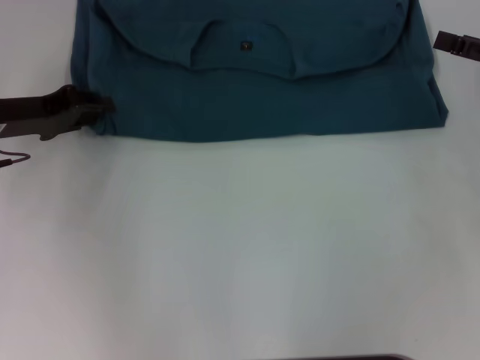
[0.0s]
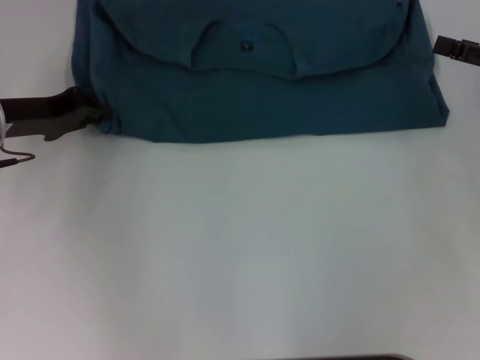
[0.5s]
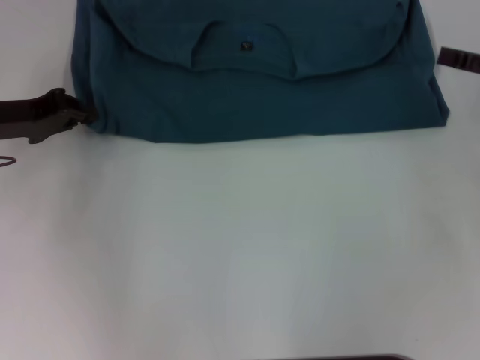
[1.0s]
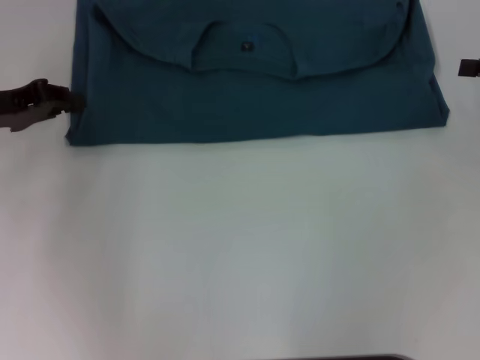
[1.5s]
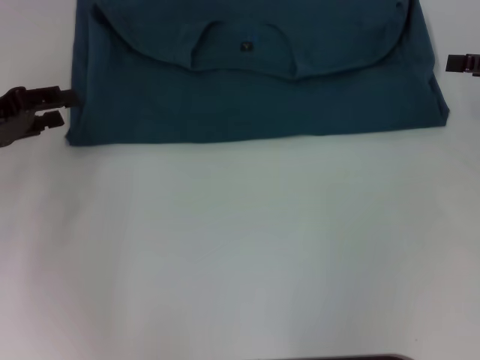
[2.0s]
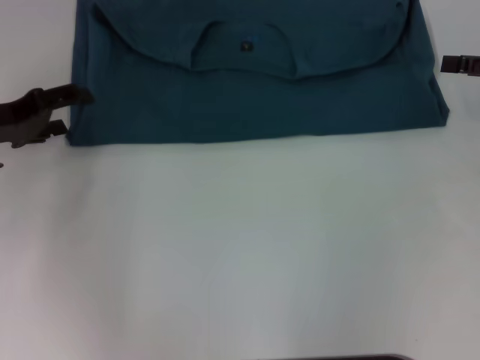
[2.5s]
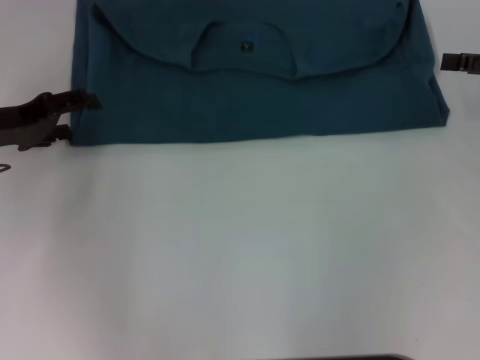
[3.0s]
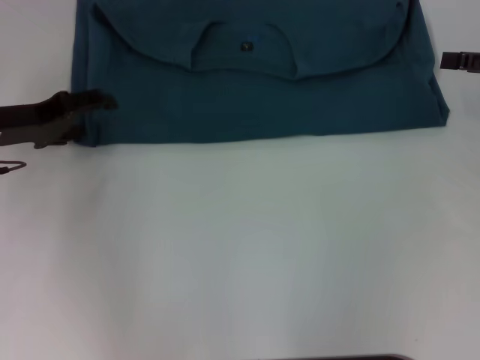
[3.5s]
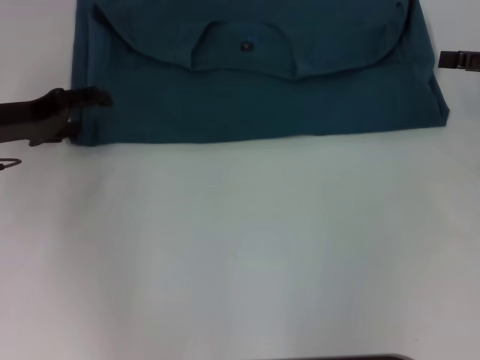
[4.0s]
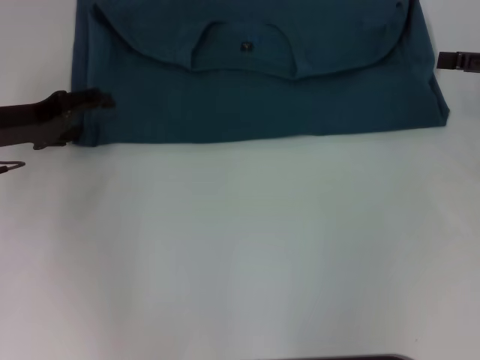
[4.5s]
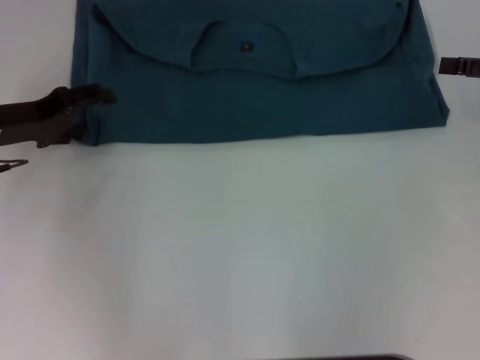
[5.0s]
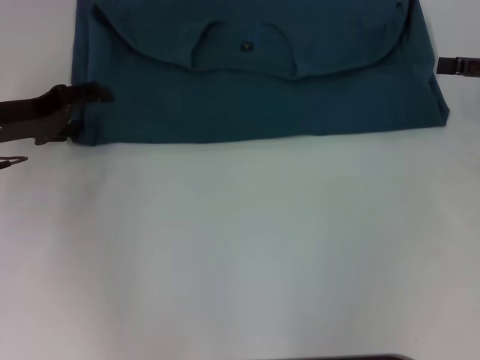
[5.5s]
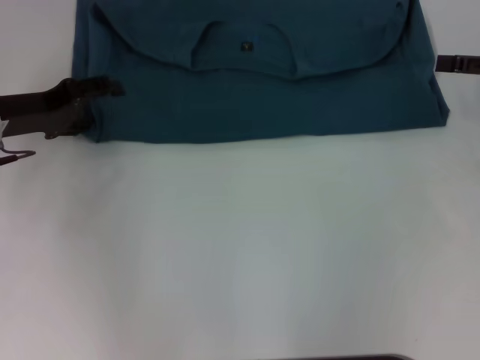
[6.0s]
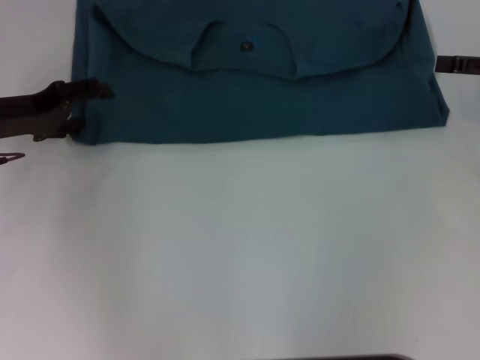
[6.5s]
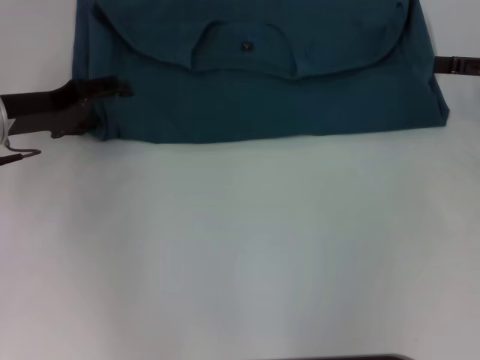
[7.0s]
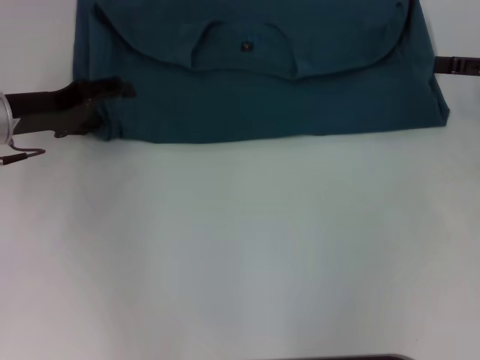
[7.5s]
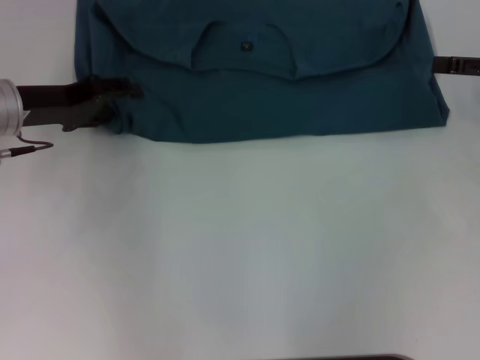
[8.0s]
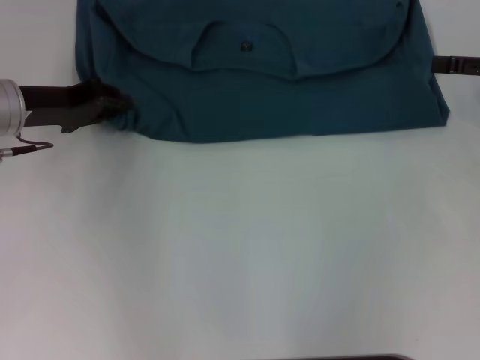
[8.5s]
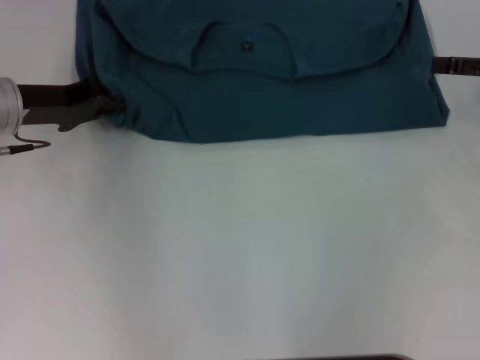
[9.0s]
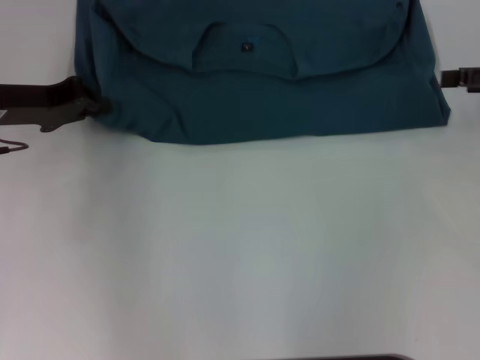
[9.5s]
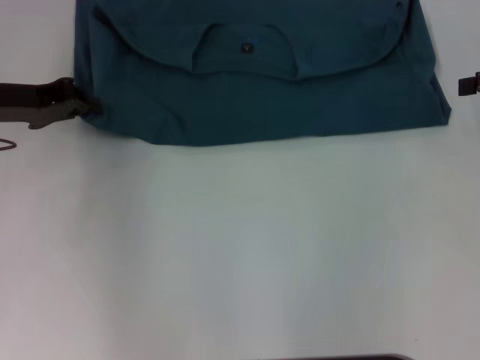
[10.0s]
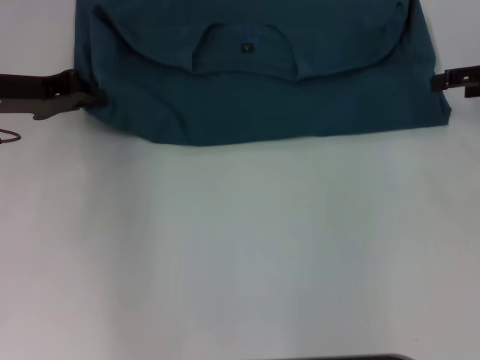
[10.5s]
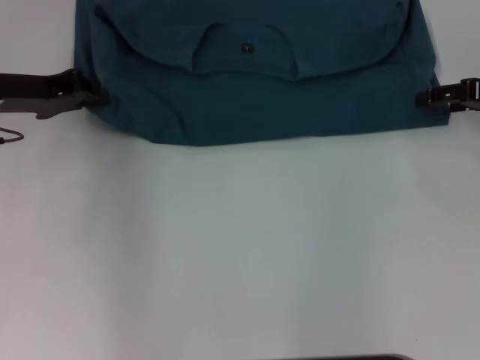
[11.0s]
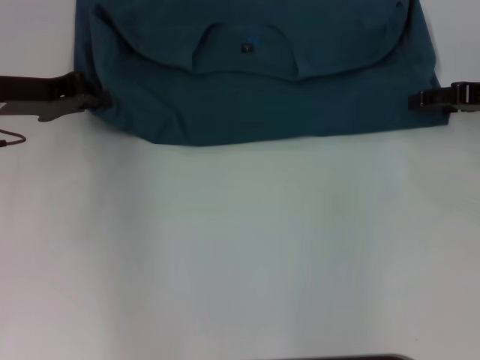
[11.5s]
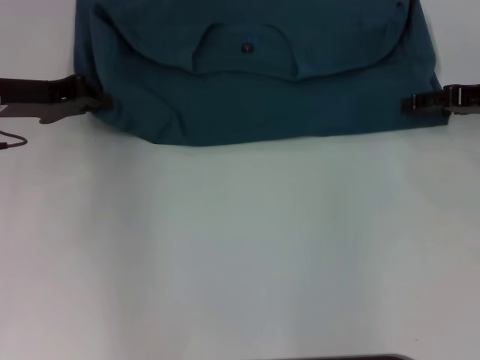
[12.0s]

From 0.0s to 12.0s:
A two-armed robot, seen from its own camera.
From 0.0s to 2.0s: The left gripper moves some 5 cm, and closes, then opens again.
From 2.0s to 4.0s: The left gripper opens its fingers.
From 4.0s to 6.0s: Both grippers stay about where they are.
From 6.0s to 8.0s: The grippers stay close to where they were, moving slightly.
From 8.0s to 10.0s: The left gripper closes its fingers.
From 10.0s to 12.0s: The right gripper shifts roughly 5 cm downward and to the left.

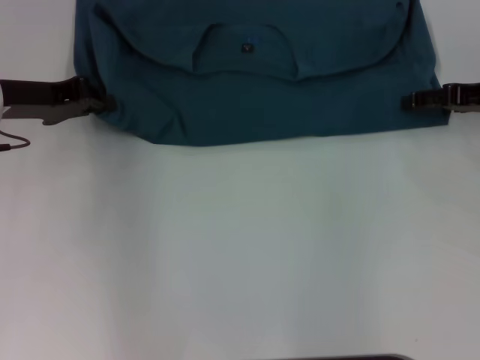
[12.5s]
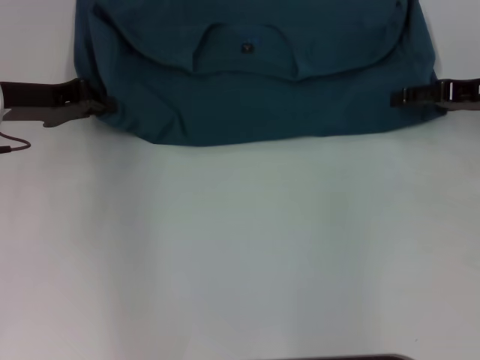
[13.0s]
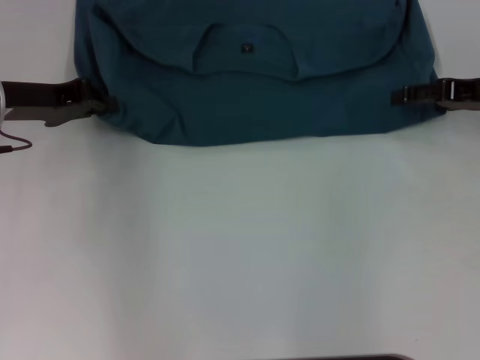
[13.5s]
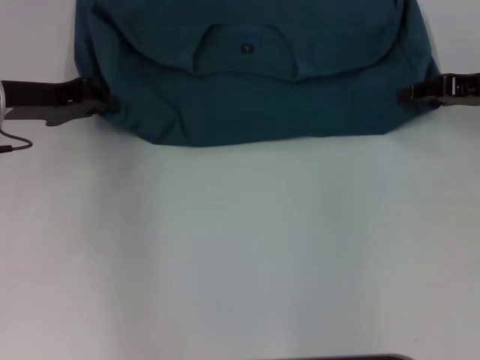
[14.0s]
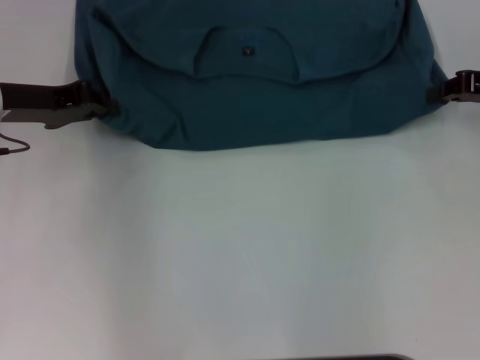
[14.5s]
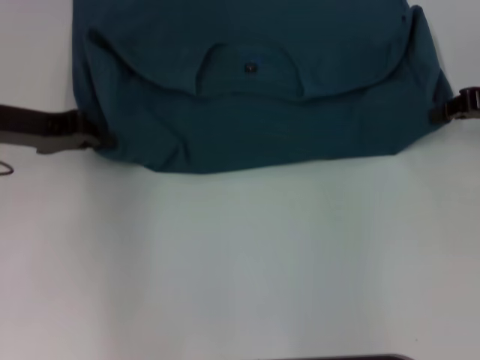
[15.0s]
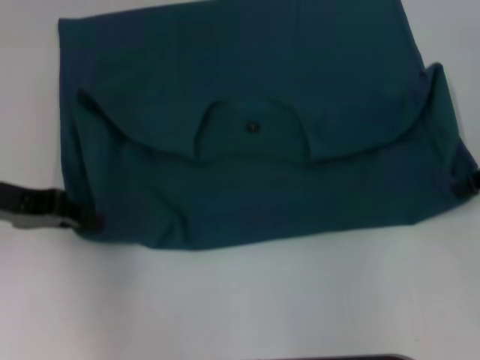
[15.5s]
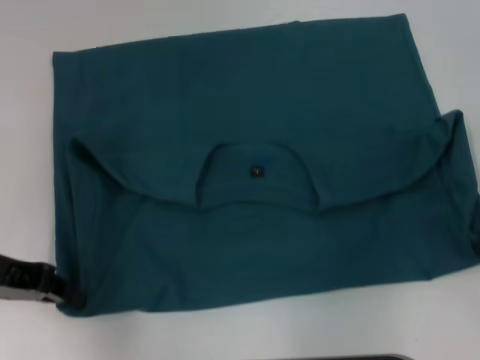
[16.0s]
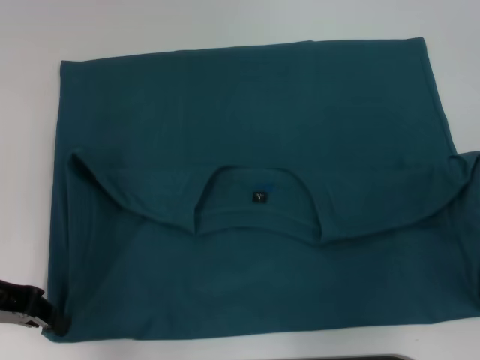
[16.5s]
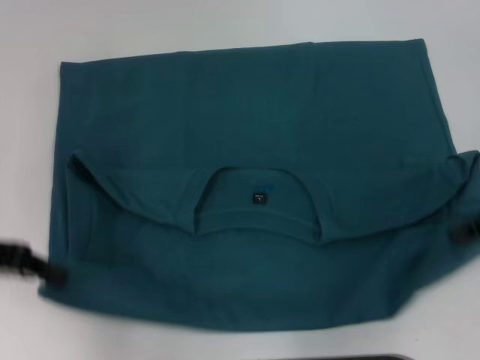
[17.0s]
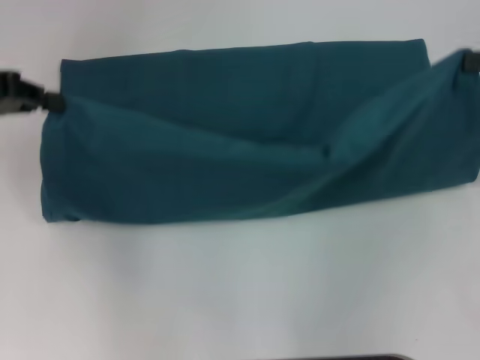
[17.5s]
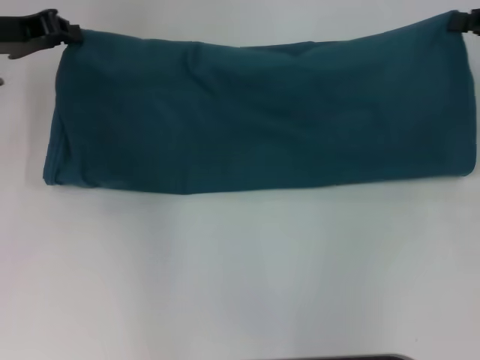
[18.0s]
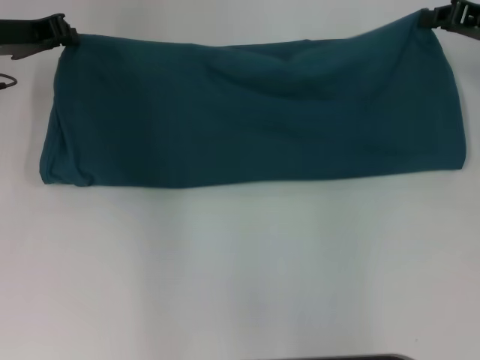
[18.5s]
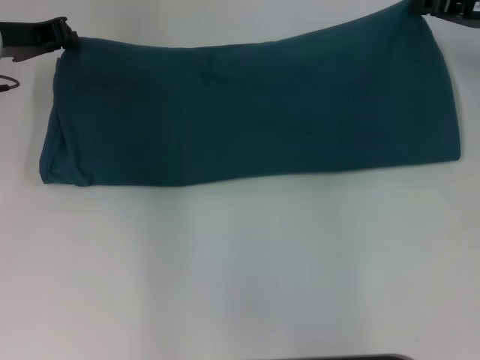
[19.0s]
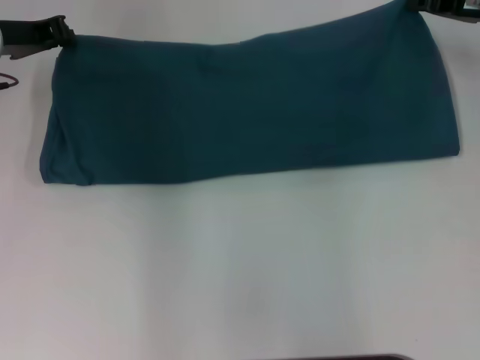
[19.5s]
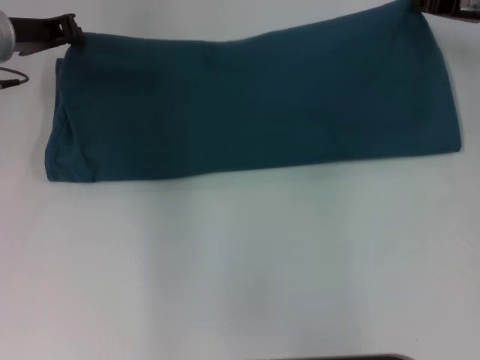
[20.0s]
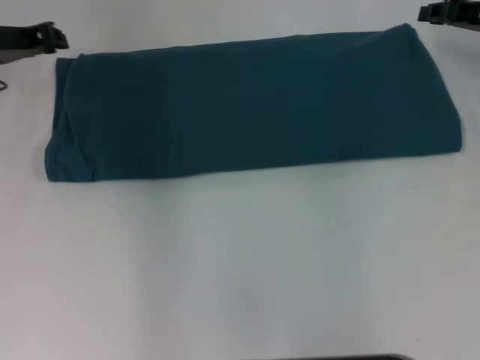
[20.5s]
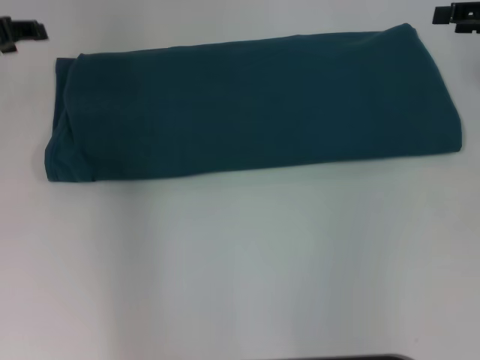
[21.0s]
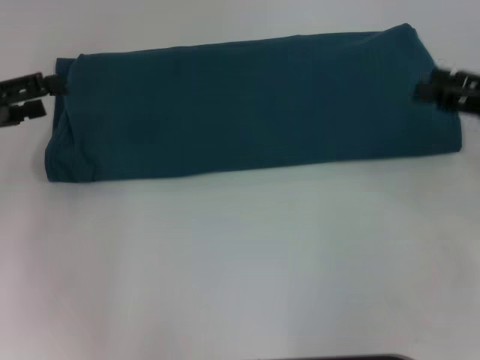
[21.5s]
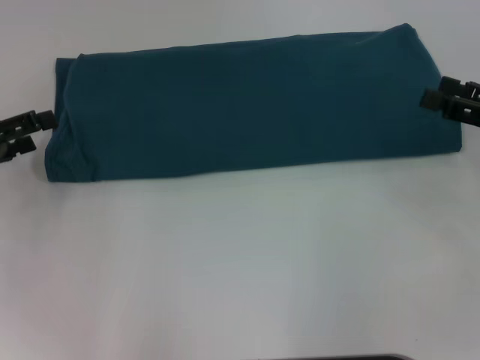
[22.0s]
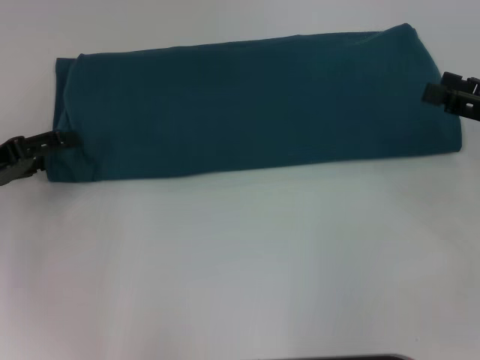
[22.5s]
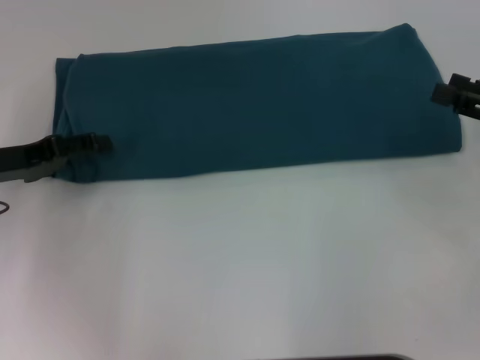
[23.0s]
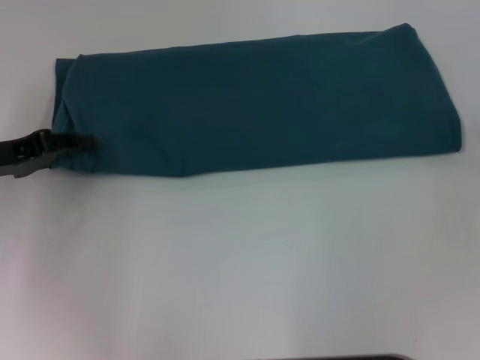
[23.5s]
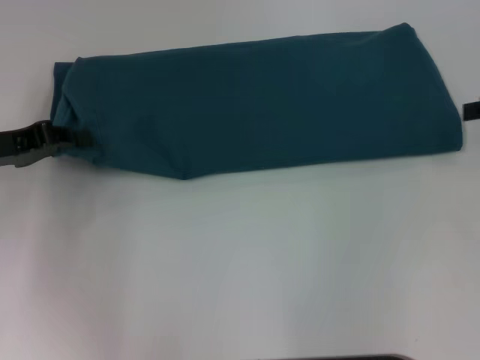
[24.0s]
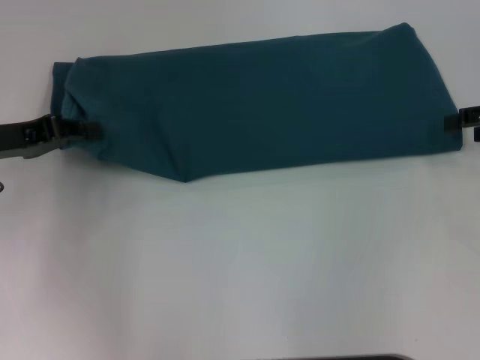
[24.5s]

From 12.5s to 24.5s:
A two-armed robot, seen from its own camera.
Step, from 12.5s to 16.5s: Pull the clothes with your left hand.
Step, from 12.5s to 16.5s: Pull the clothes with your right hand.
Step, from 17.0s to 20.5s: Fold the clothes to the left.
Step, from 17.0s to 20.5s: Fold the clothes to the right.
From 12.5s to 14.5s: The right gripper closes up.
From 14.5s to 16.5s: The grippers both shift backward by roughly 10 cm.
From 16.5s to 18.5s: The two grippers go roughly 15 cm forward.
From 18.5s to 20.5s: There are only small adjustments of the grippers.
From 20.5s to 22.5s: The left gripper shifts some 15 cm backward, to the left and downward, and opens; the right gripper travels backward by about 15 cm, and opens its fingers.
From 22.5s to 24.5s: The right gripper shifts some 5 cm forward, while the left gripper shifts by roughly 5 cm, and closes up.

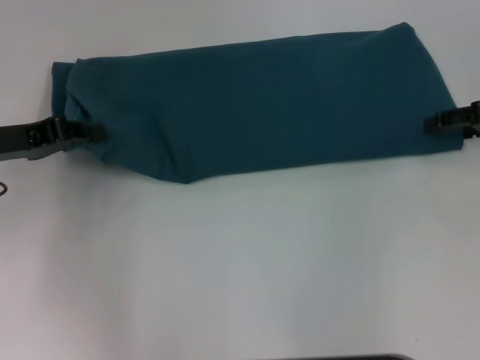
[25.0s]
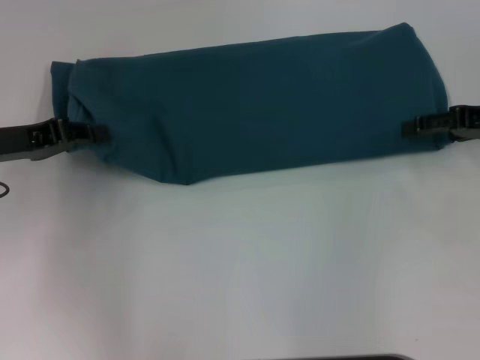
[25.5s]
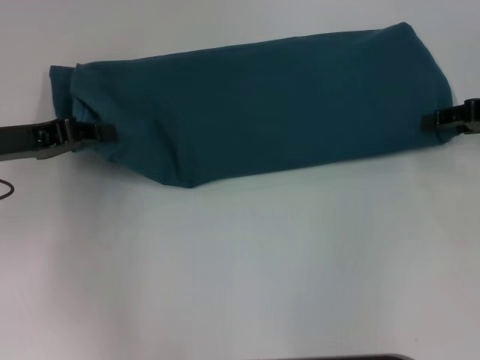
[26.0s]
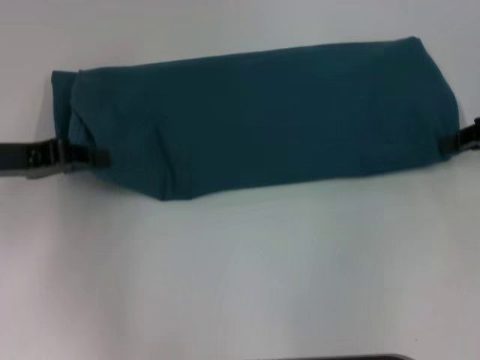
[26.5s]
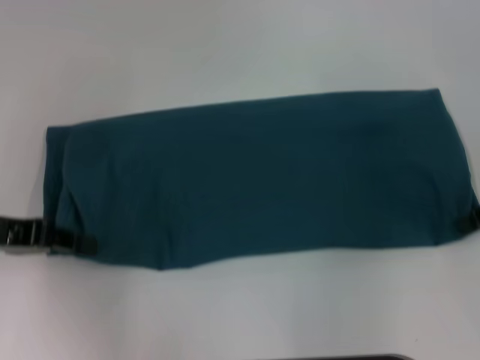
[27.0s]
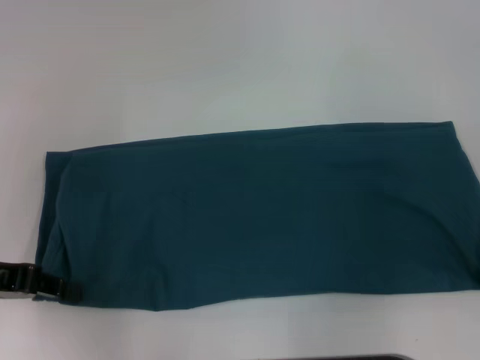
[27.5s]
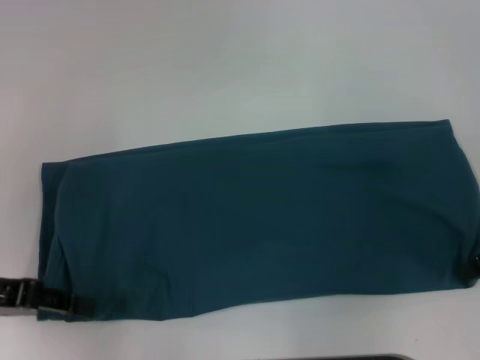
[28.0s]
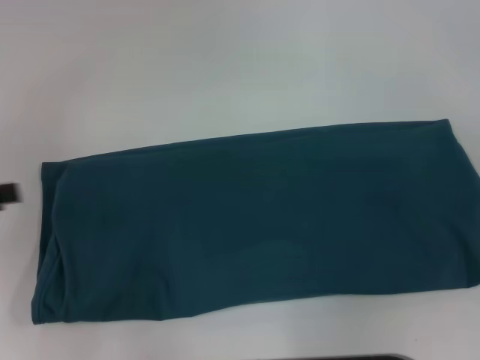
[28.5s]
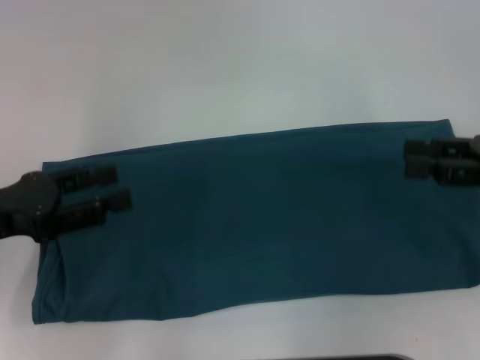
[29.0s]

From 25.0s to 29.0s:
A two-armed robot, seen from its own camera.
Step, from 25.0s to 28.0s: Pull the clothes with your left hand.
Step, from 25.0s to 28.0s: Pull the clothes with your right hand.
From 25.0s to 27.0s: The right gripper goes about 5 cm backward, and closes up.
From 27.0s to 29.0s: The right gripper opens its fingers; the left gripper reaches about 5 cm to the left, then returns, and opens up.
